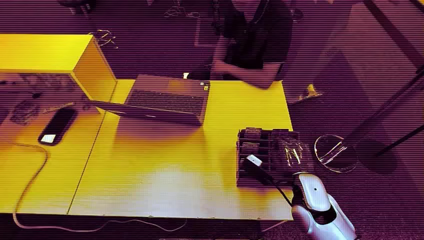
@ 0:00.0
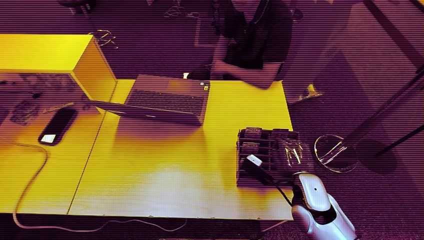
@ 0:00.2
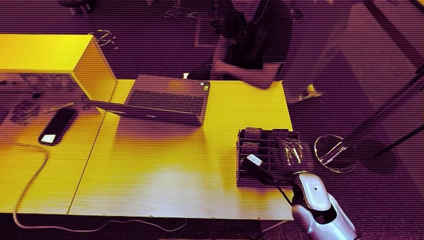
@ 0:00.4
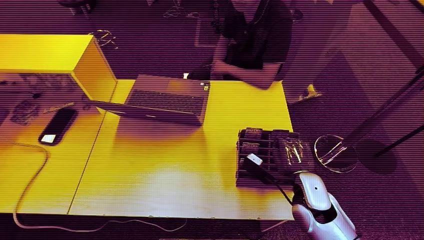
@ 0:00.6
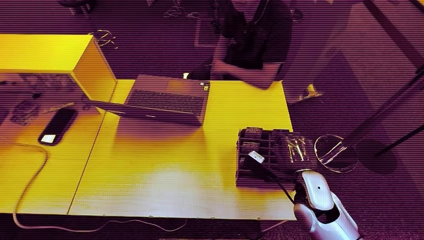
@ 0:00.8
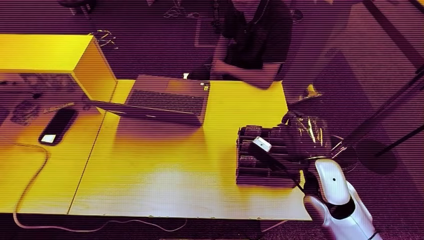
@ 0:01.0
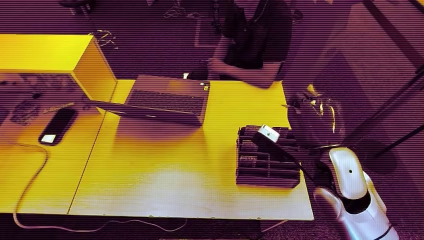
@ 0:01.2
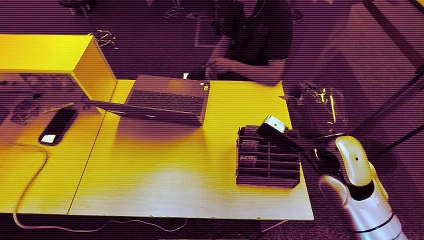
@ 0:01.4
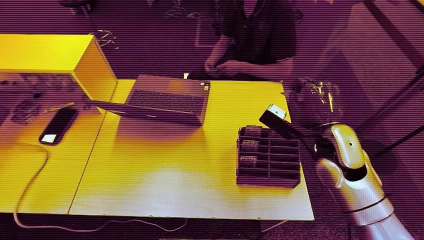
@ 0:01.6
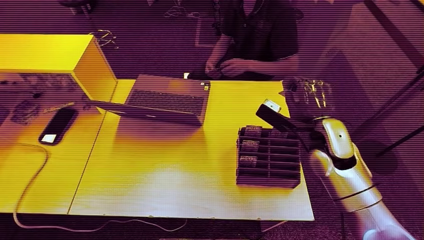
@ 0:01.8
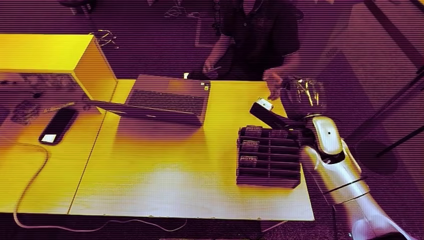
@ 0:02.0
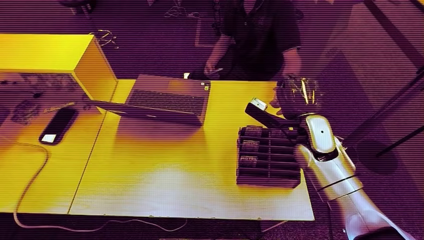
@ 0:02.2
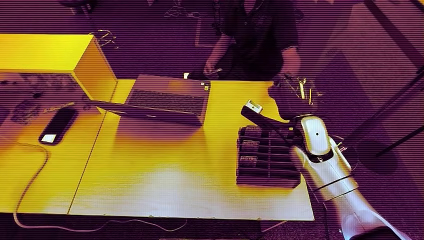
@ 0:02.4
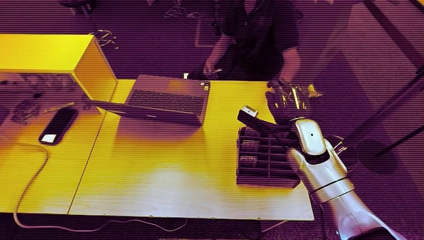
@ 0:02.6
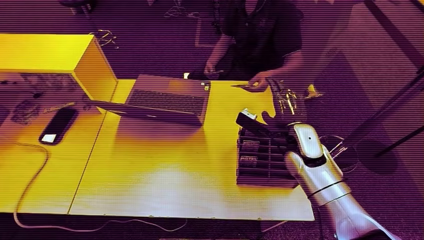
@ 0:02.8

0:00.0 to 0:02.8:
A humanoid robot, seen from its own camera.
Step, 0:00.0 to 0:01.2: Pick up the room card from the card holder.
Step, 0:02.6 to 0:02.8: Hand the room card to the target.
0:01.4 to 0:02.8: The right hand heads forward and downward, covering about 10 cm.
